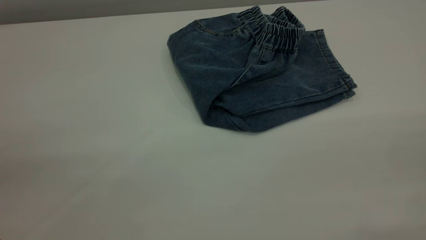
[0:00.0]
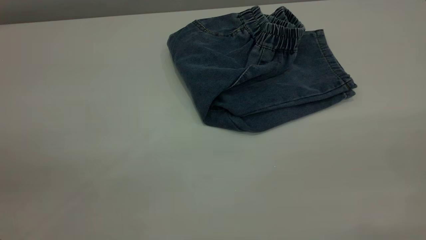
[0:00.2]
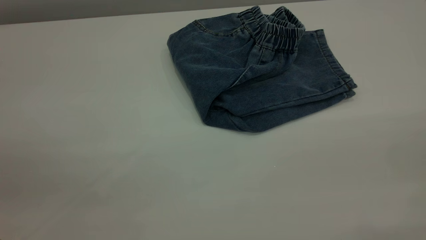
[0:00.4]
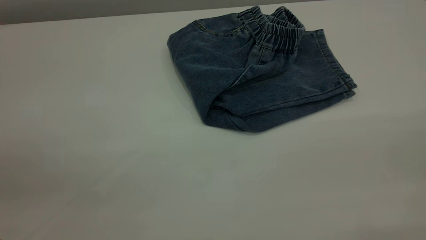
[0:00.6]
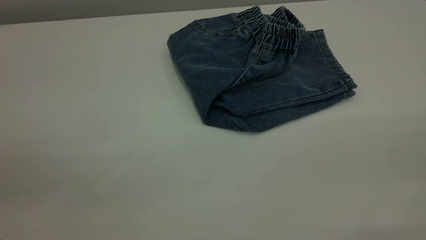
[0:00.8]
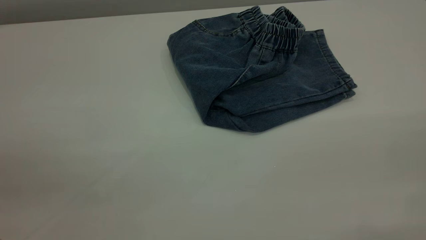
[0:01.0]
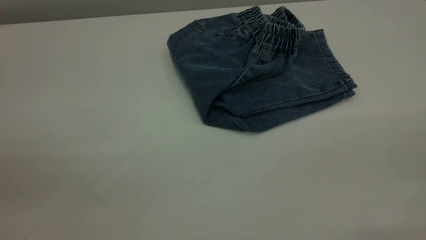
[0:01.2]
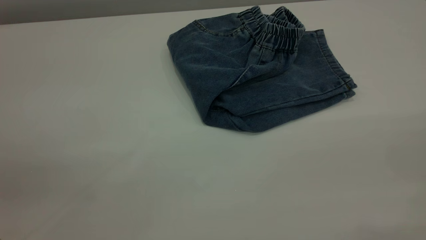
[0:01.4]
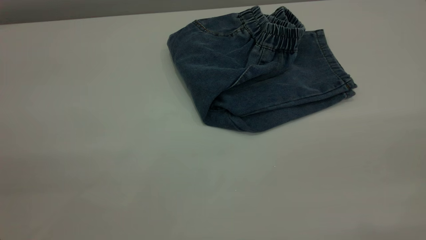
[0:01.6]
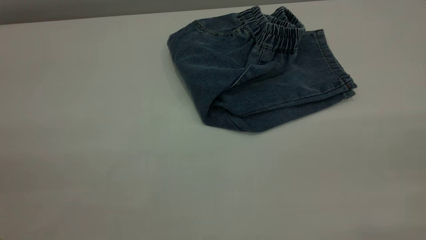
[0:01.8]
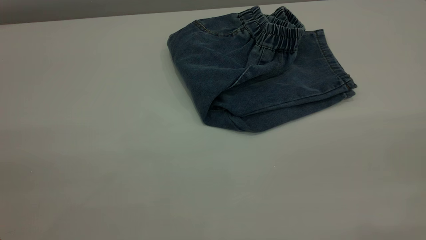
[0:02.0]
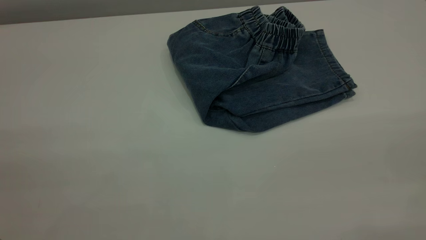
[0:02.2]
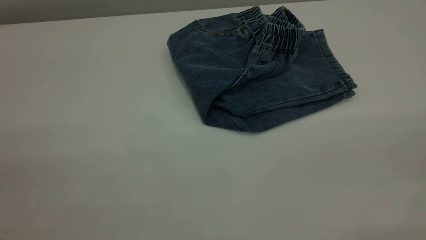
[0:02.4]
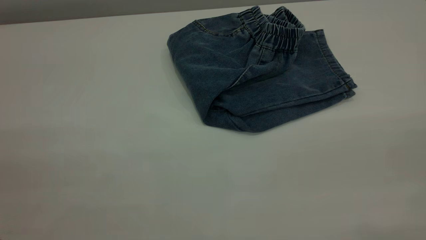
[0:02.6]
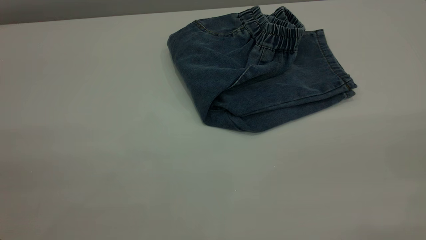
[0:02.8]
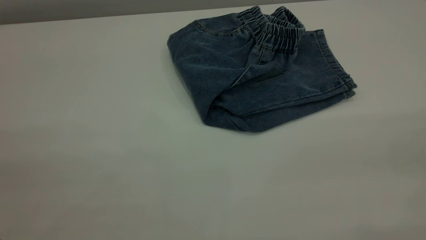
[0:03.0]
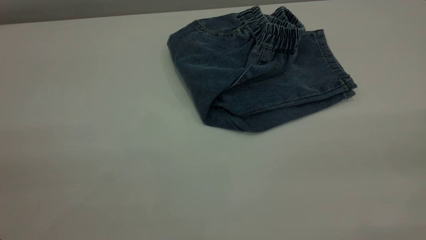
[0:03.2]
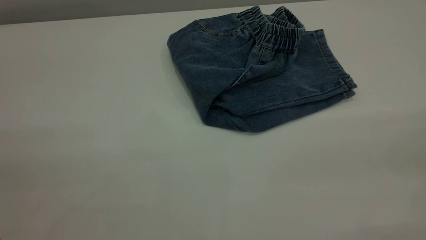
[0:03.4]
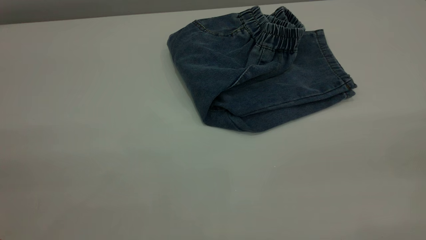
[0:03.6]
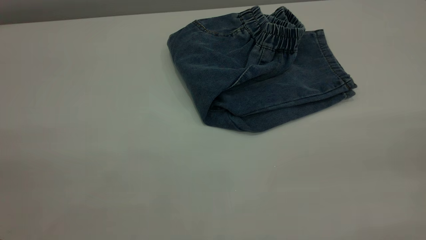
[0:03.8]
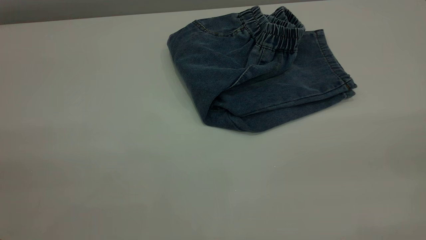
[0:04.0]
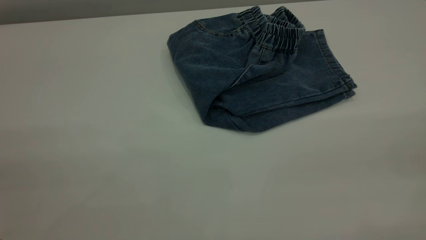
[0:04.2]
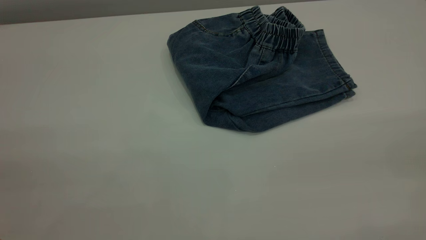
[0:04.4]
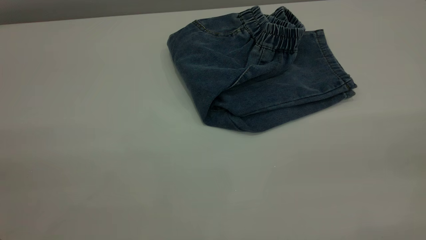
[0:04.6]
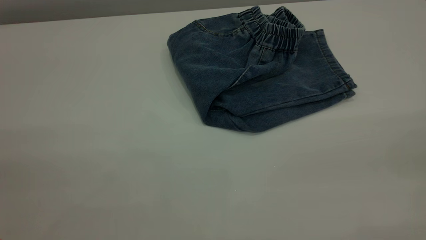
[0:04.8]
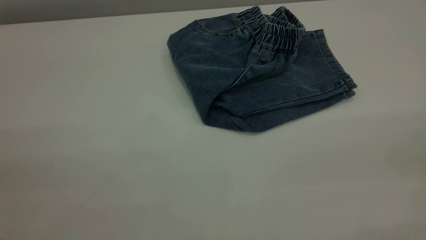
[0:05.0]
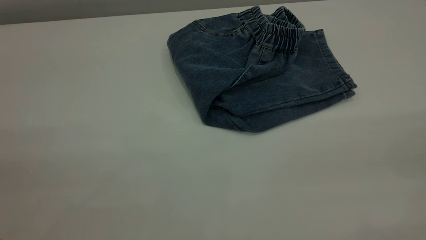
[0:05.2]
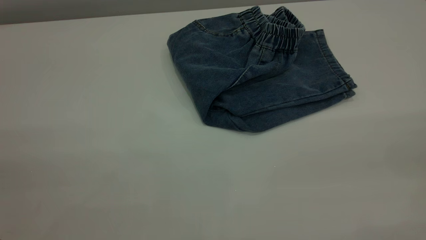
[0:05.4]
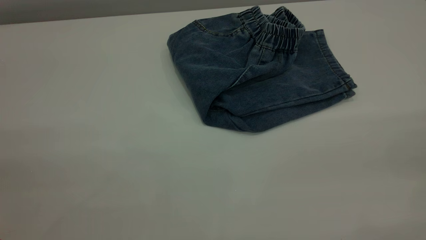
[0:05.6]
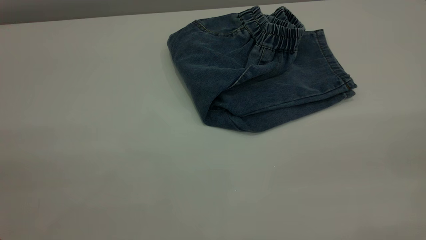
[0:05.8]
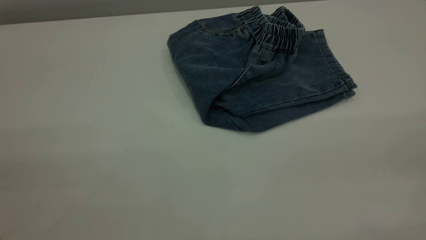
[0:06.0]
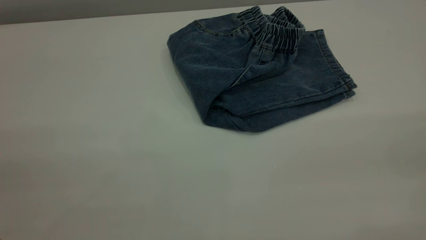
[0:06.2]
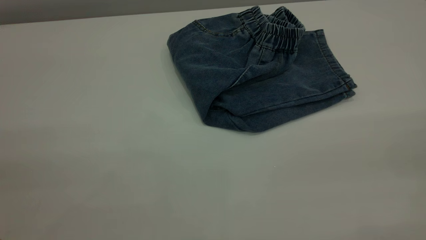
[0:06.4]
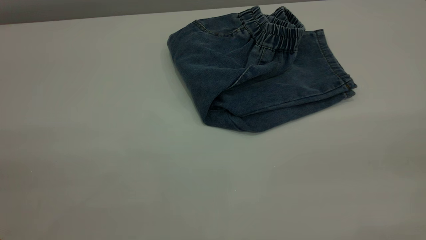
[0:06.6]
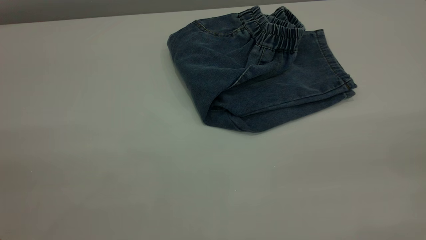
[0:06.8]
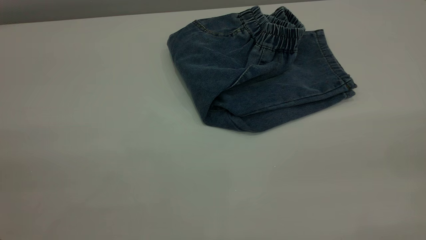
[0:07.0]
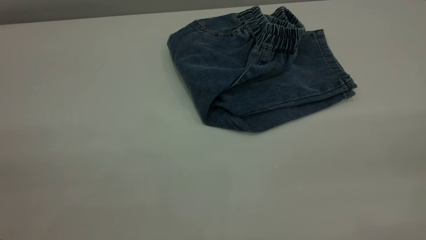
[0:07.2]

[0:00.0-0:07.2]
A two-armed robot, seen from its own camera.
0:04.4 to 0:07.2: The two grippers keep their place.

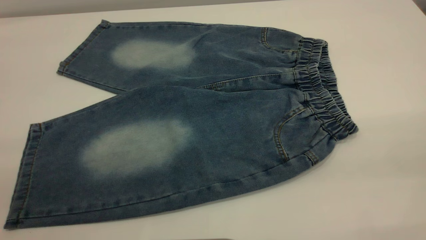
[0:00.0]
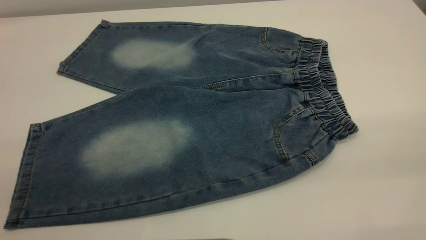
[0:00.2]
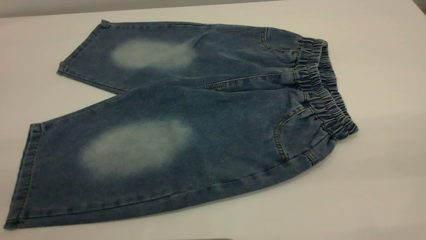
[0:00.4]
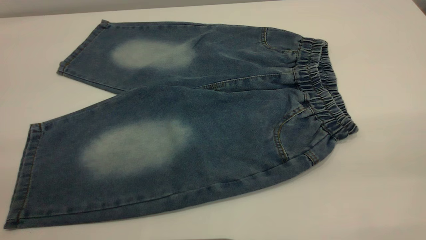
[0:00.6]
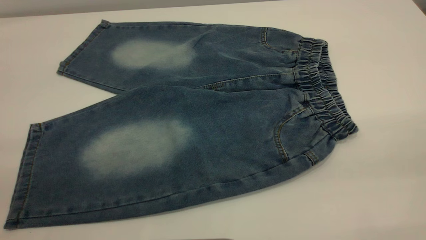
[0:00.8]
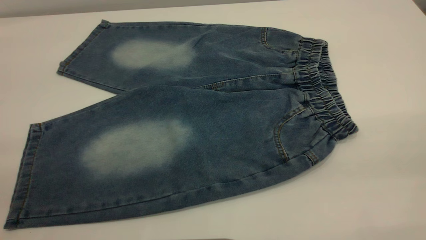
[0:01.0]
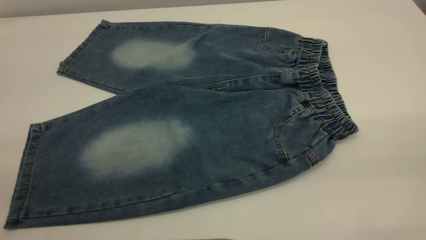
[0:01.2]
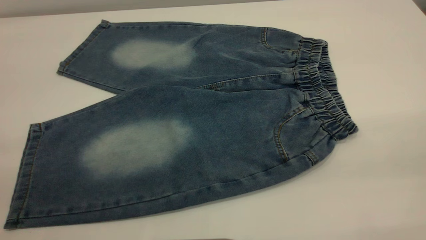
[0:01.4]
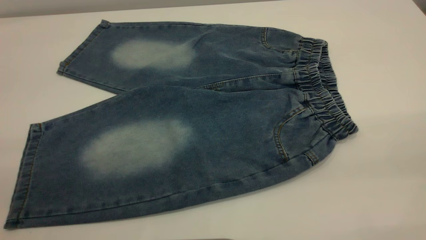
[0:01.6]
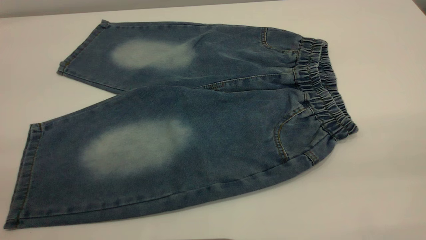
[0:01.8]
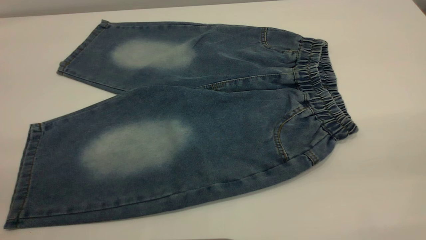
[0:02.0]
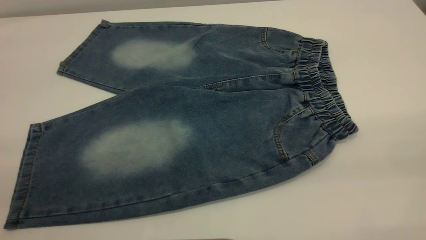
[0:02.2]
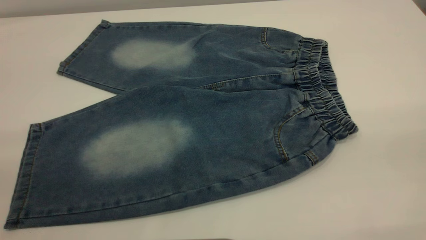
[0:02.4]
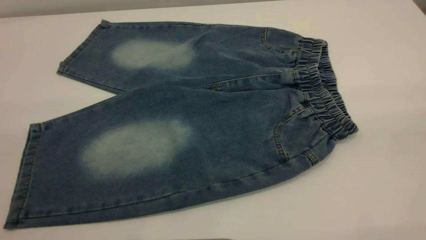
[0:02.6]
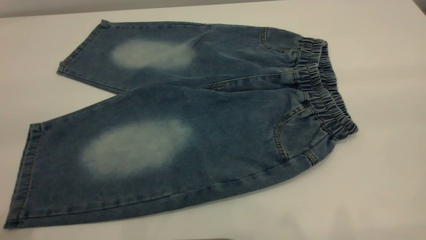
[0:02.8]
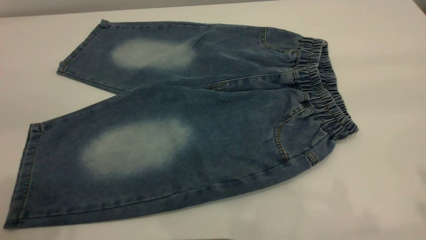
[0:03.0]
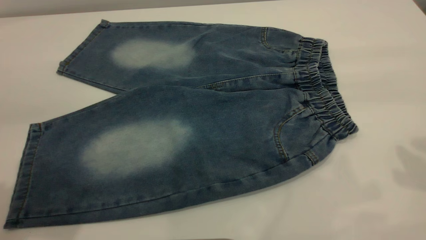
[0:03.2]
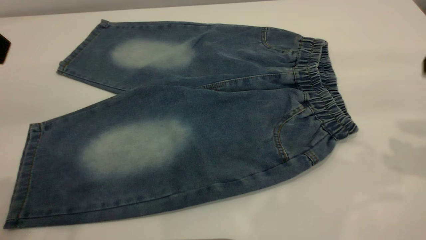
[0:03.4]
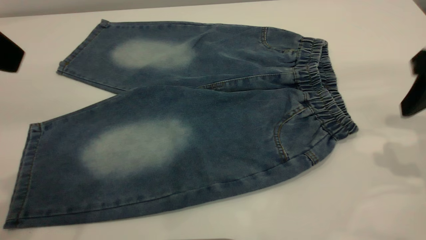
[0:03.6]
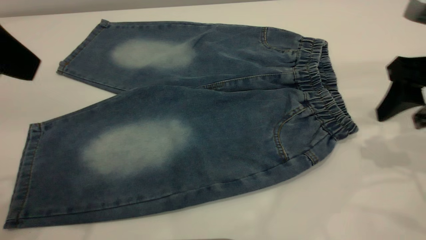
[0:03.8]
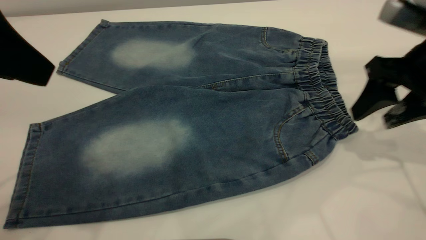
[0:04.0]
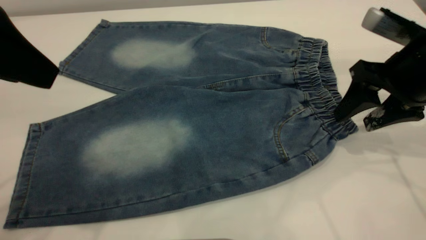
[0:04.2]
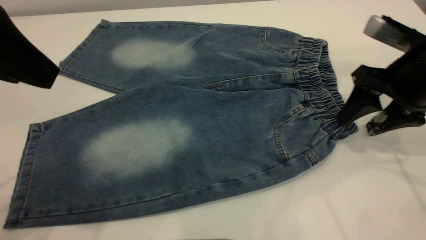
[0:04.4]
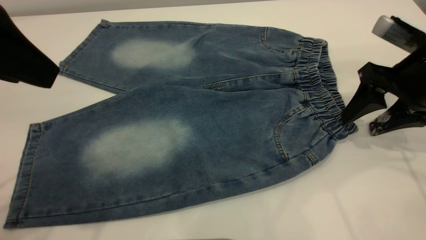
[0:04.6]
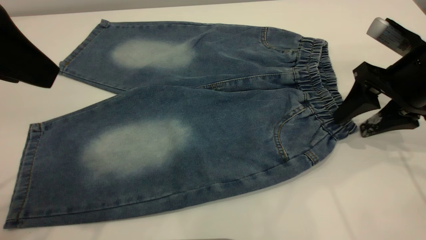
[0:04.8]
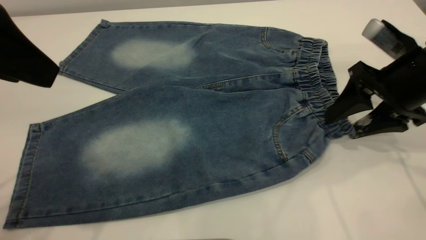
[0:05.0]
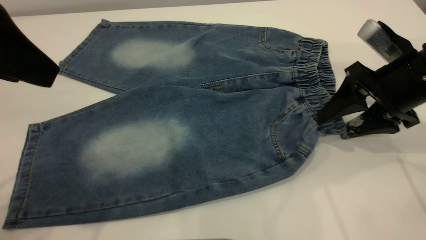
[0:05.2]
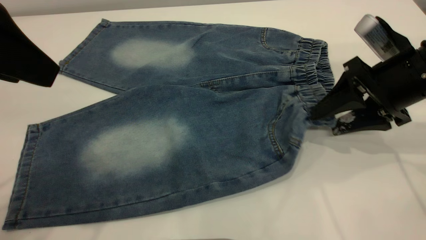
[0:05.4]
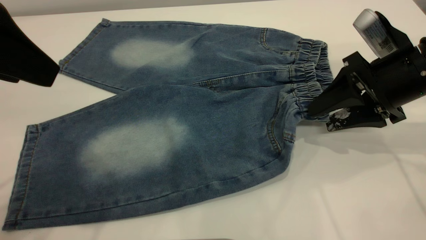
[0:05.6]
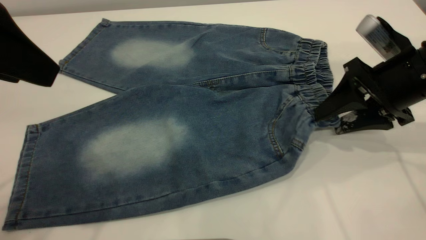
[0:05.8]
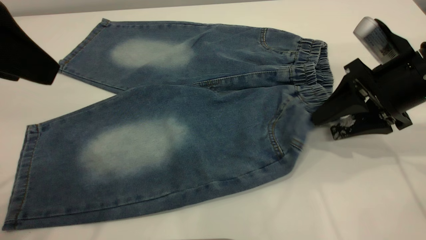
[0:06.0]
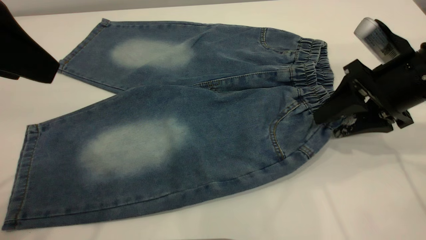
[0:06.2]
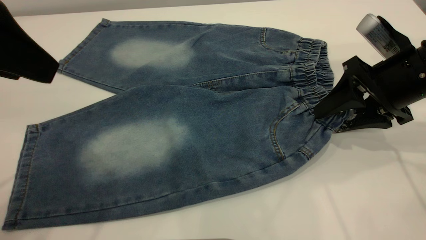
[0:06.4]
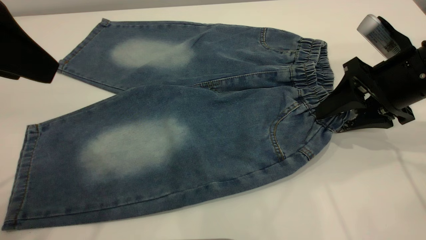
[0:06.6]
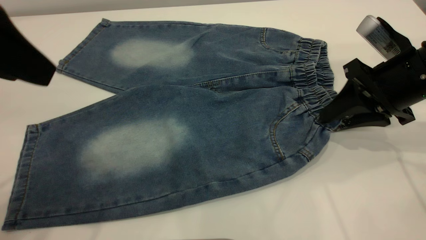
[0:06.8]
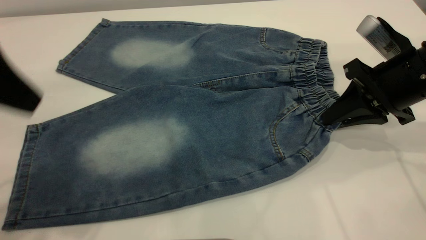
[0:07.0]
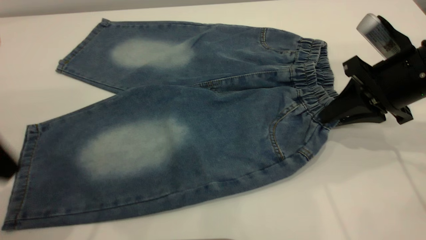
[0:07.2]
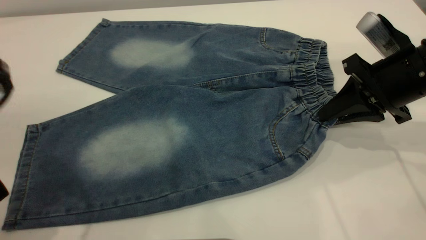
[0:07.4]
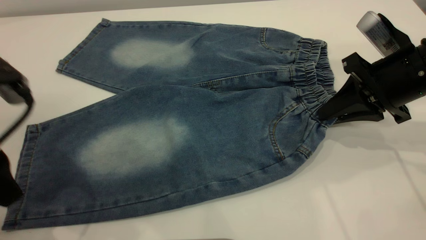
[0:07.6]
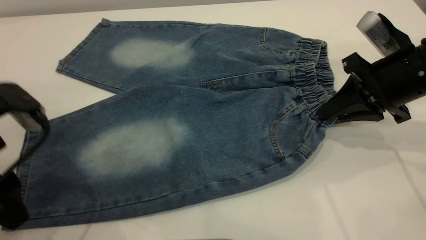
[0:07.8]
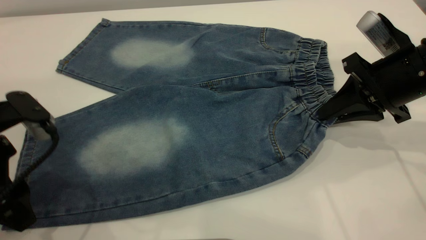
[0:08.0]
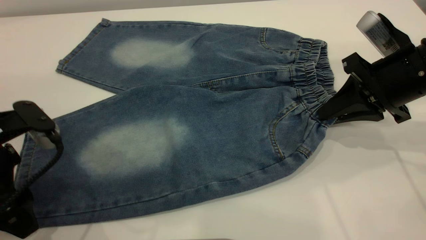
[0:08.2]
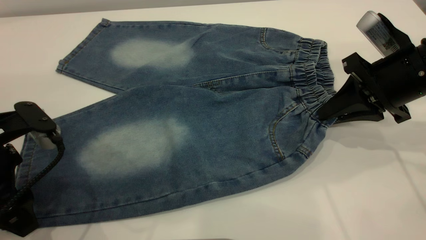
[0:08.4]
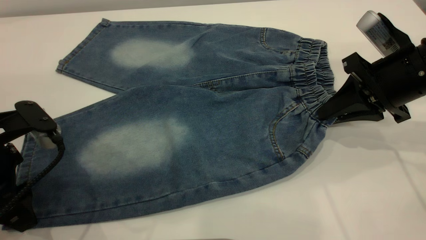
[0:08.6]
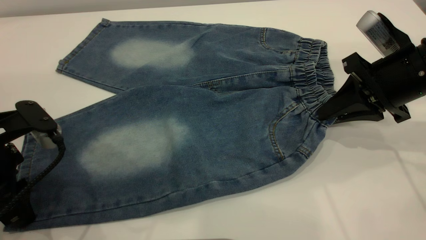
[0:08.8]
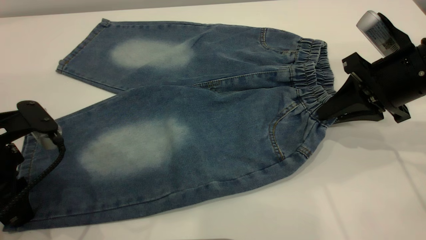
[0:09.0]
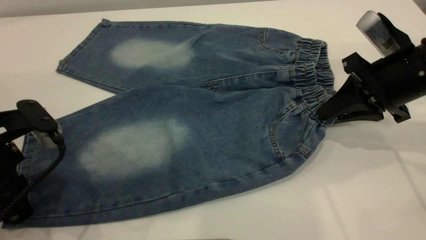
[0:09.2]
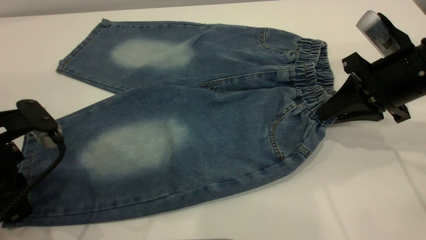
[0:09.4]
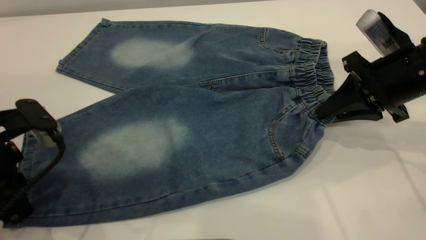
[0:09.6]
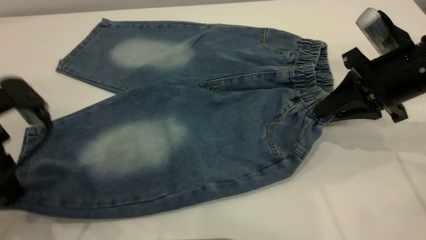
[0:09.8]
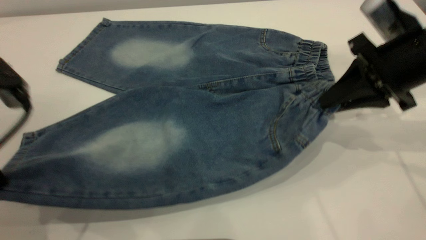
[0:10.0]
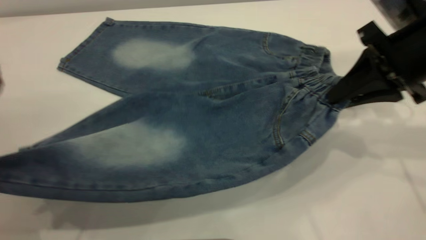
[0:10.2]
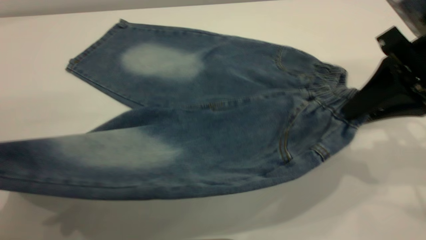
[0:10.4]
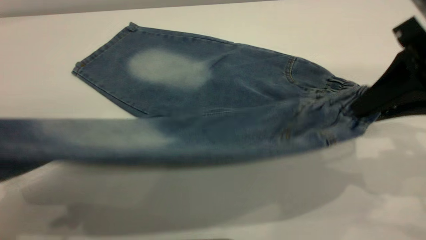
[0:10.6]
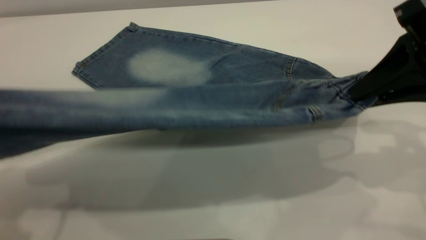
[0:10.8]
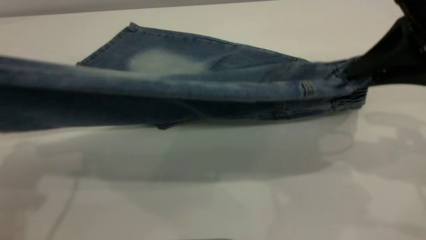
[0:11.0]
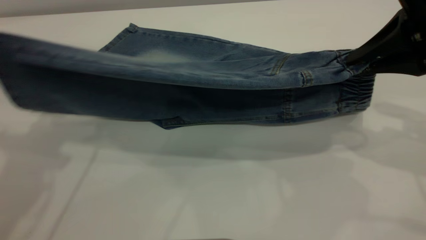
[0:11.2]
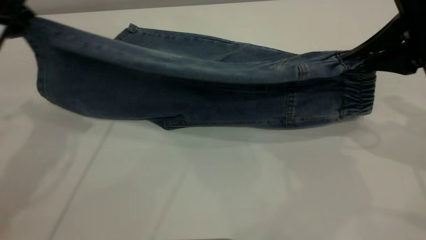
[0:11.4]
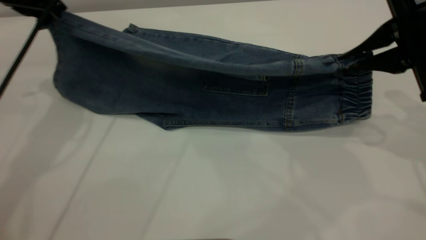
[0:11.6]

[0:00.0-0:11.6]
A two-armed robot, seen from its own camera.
0:00.0 to 0:01.4: The two grippers keep their place.
0:02.8 to 0:04.4: The left gripper goes some 10 cm forward and downward, while the right gripper is displaced downward and forward by roughly 30 cm.
0:05.8 to 0:07.2: The right gripper closes; the left gripper moves downward, some 5 cm.
0:07.2 to 0:08.8: The left gripper shifts about 10 cm downward, and closes.
0:08.8 to 0:10.2: The right gripper goes approximately 5 cm upward, while the left gripper heads upward, covering some 10 cm, and closes.
0:10.2 to 0:11.6: The left gripper shifts roughly 20 cm forward.
